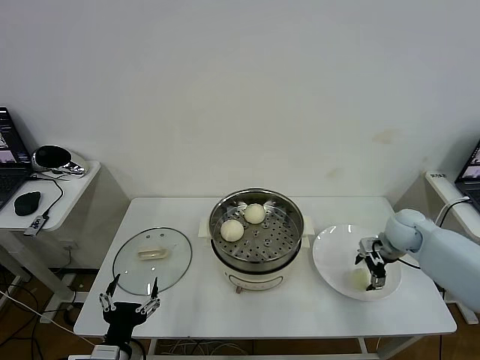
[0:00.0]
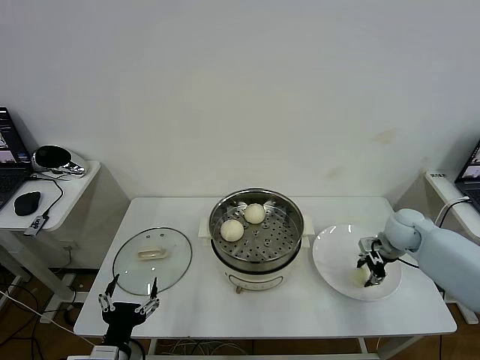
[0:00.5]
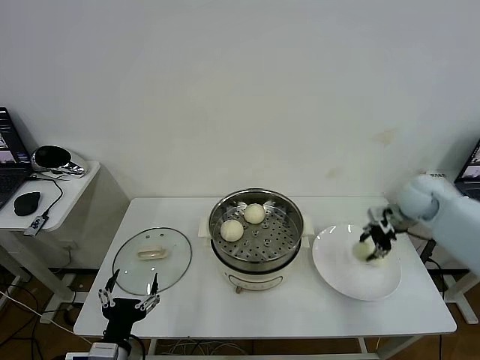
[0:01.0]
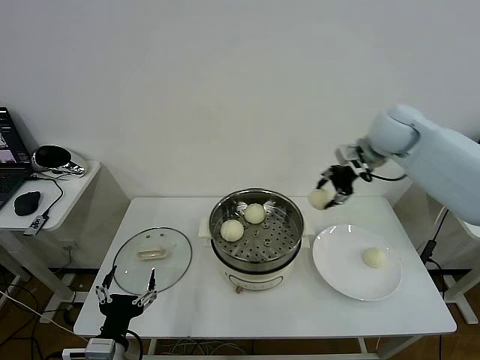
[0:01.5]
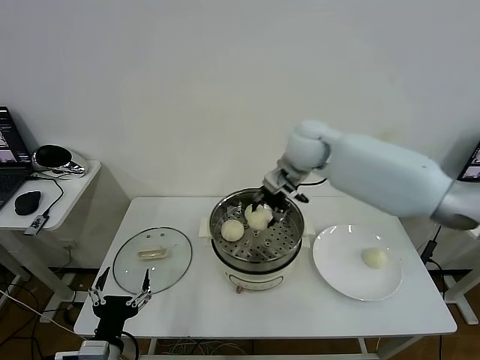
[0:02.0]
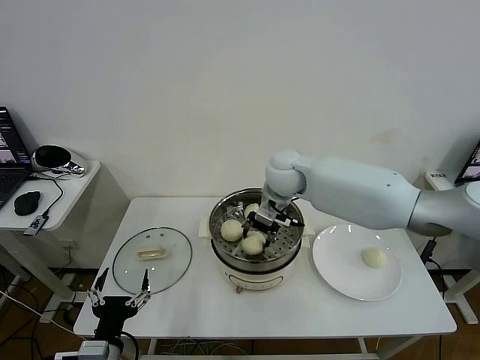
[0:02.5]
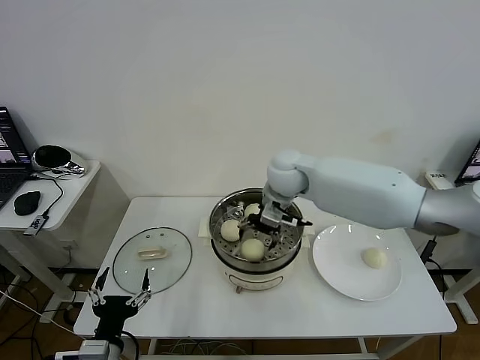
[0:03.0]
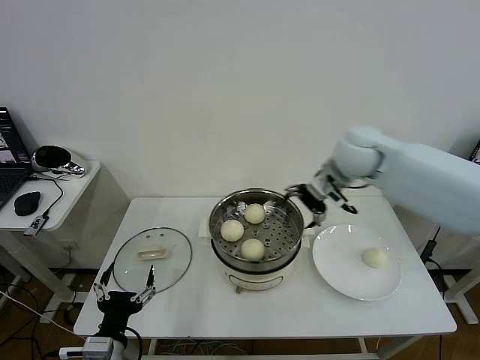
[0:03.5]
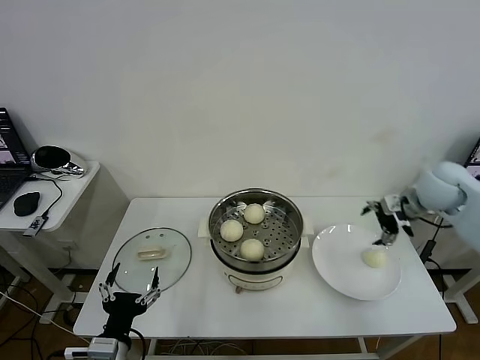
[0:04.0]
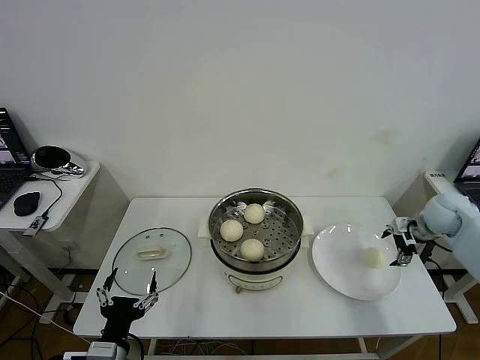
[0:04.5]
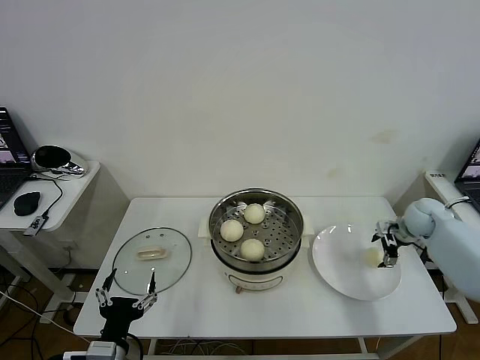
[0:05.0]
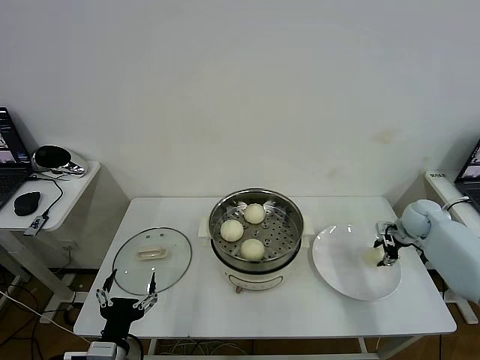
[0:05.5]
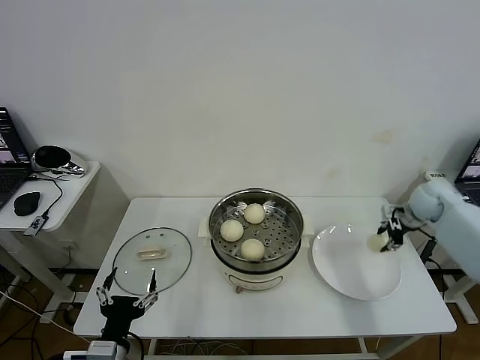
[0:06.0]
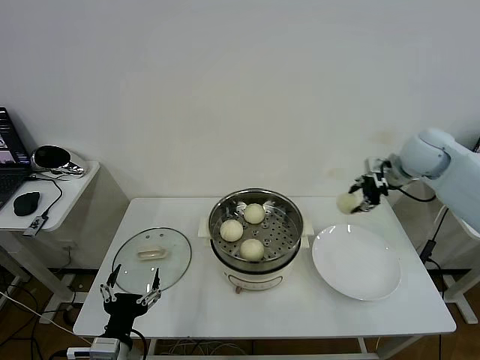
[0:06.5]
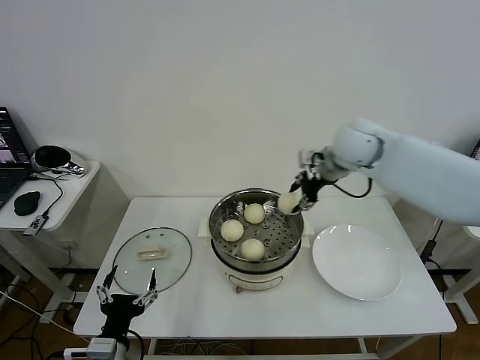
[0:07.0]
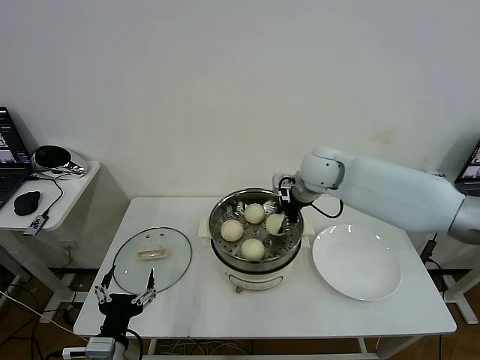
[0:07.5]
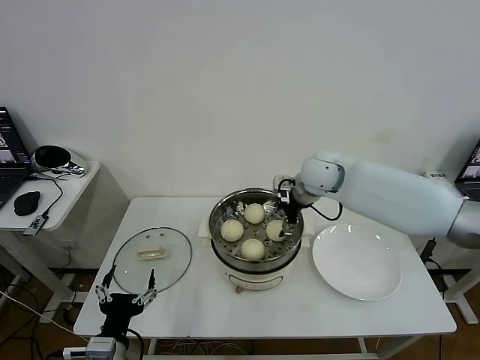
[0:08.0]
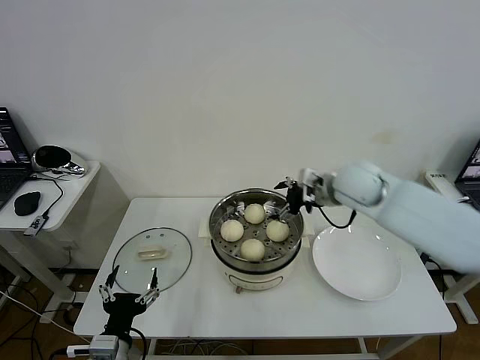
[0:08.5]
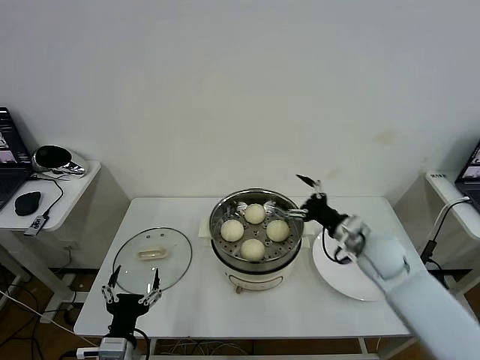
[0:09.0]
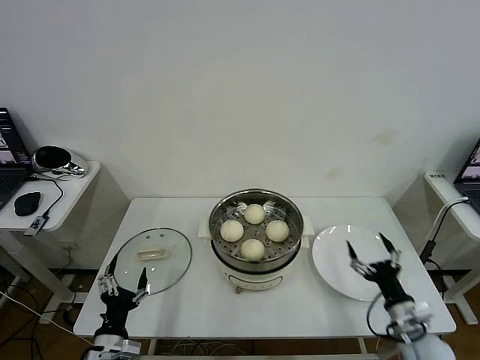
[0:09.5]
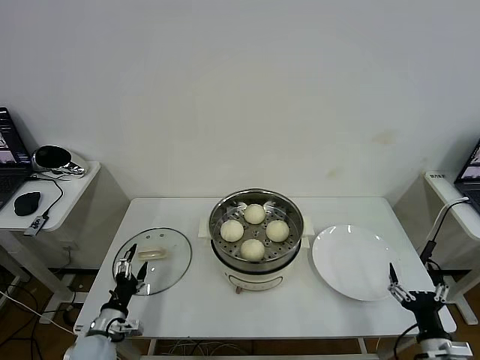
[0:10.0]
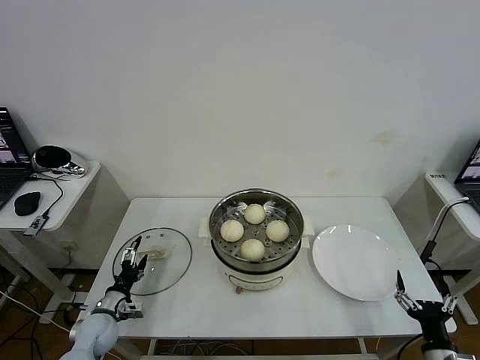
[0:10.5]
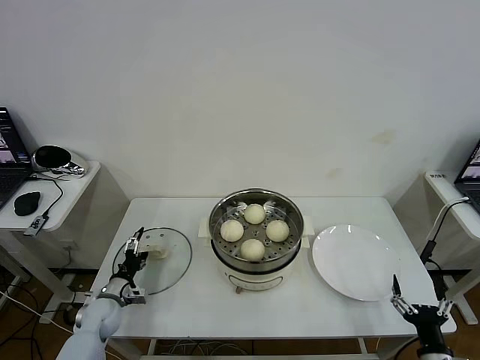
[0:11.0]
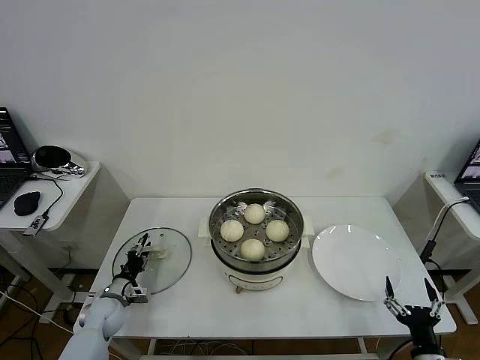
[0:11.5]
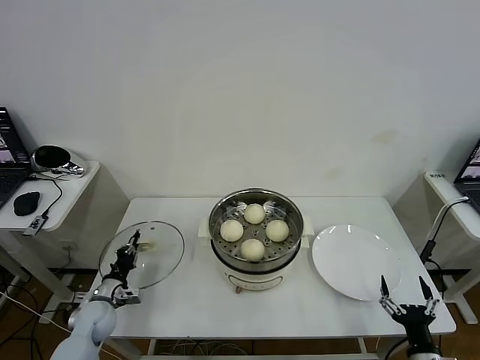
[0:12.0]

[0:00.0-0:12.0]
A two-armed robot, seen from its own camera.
Task of the whole recording: take steamed baozi put them in steamer then cover it.
Step, 0:01.0 to 0:03.0: Place the baozi on the steamer with right gripper.
Step, 0:03.5 to 0:05.5: Grasp the baozi in the plate with right gripper.
Step, 0:06.0 to 0:07.5: Place the baozi on the steamer with right gripper.
Step, 0:08.5 to 0:11.5: Grasp the pot lid with left gripper.
0:00.0 to 0:02.0: The right gripper is displaced to the left and upward by some 35 cm, and closes.
0:02.0 to 0:04.0: The right gripper shifts roughly 30 cm to the right, and opens its fingers.
0:04.0 to 0:06.0: The right gripper shifts about 10 cm downward and forward, and closes.
0:06.0 to 0:08.0: The right gripper heads to the left, covering about 30 cm, and opens its fingers.
0:08.0 to 0:10.0: The right gripper travels backward, downward and to the right by some 50 cm. The left gripper goes some 20 cm downward, forward and to the left.
0:10.0 to 0:12.0: The left gripper is displaced forward by some 10 cm, and closes.

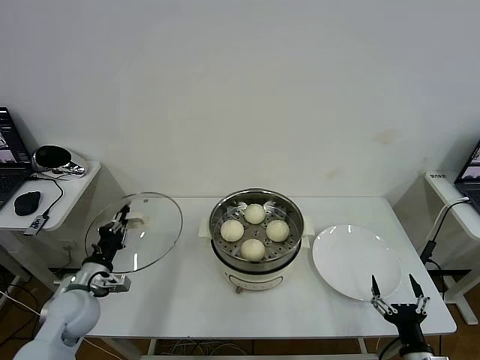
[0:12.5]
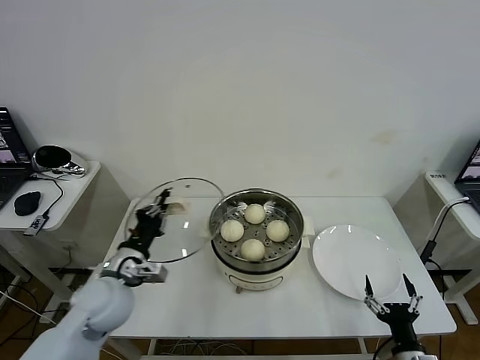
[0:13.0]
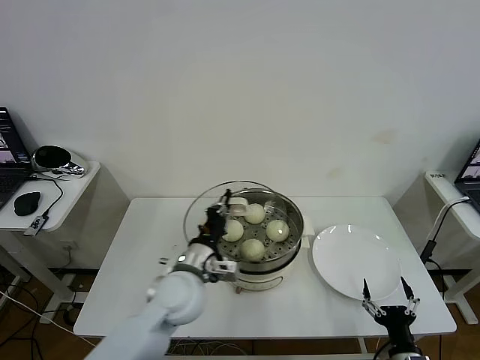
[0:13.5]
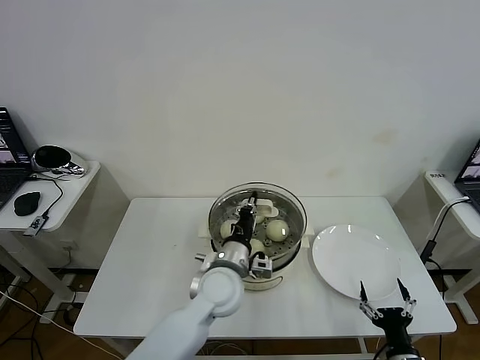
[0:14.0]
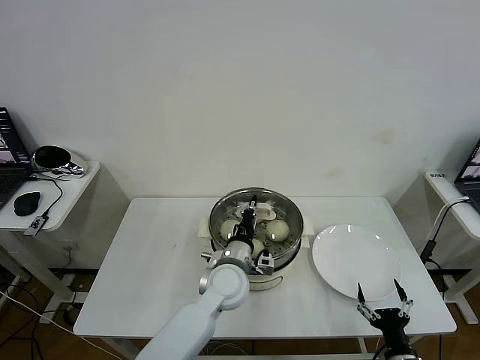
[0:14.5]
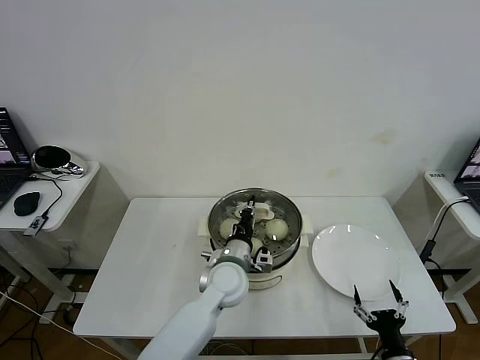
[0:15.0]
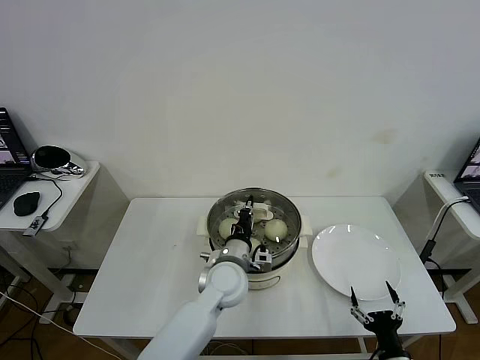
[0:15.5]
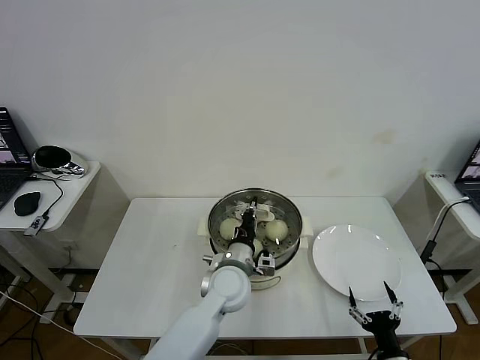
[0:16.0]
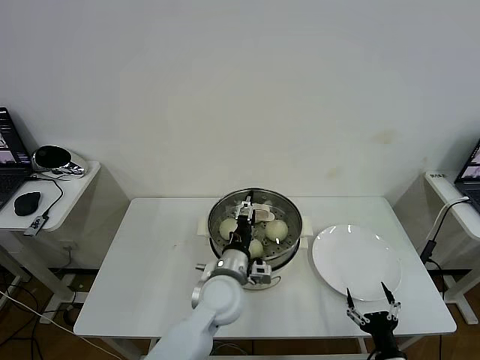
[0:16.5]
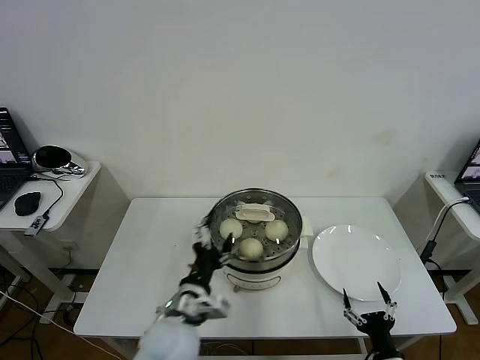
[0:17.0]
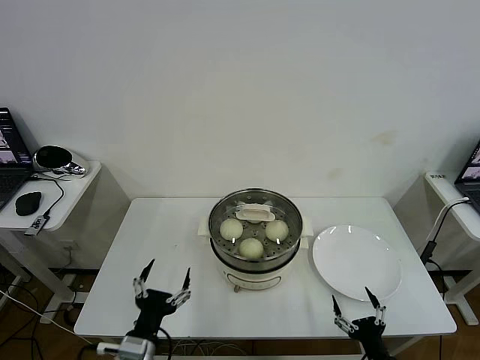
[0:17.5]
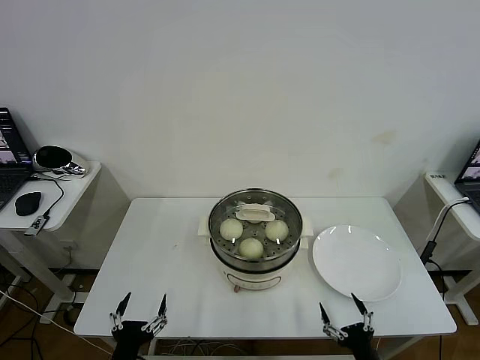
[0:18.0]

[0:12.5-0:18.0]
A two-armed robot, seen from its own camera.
Task of the whole recording: take steamed baozi put them in steamer then cover it.
Step, 0:12.5 to 0:16.5: Place the pot lid on the steamer with left gripper.
0:12.5 to 0:14.5: The left gripper goes approximately 35 cm to the right.
0:14.5 to 0:16.0: Neither gripper changes place.
0:16.0 to 0:18.0: The left gripper heads backward and to the left, covering some 35 cm, and opens up.
